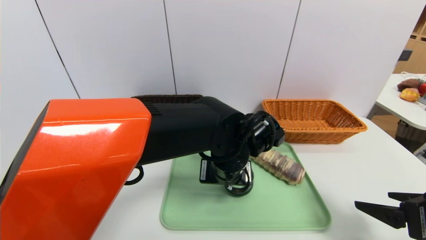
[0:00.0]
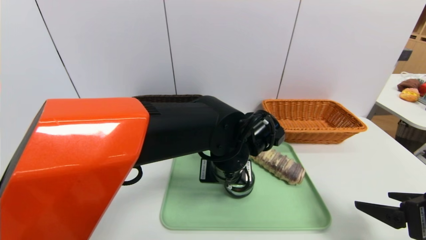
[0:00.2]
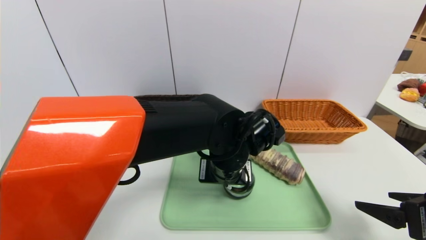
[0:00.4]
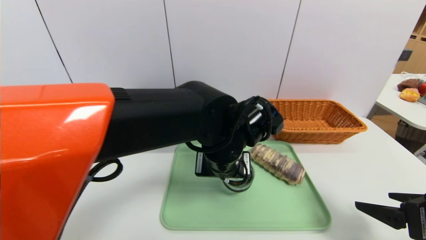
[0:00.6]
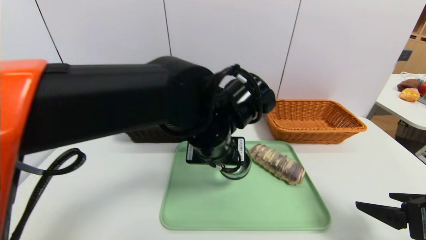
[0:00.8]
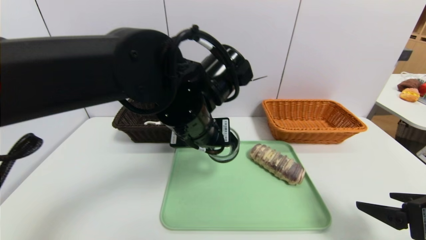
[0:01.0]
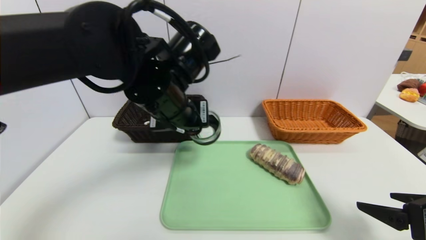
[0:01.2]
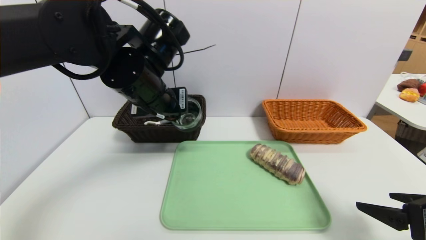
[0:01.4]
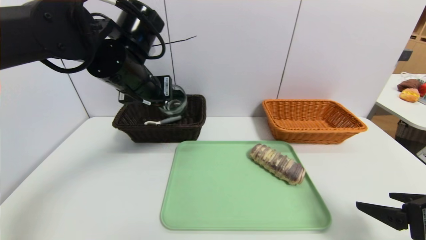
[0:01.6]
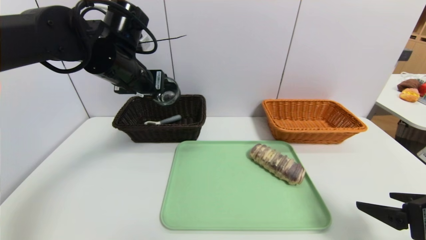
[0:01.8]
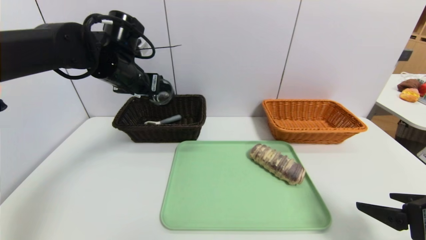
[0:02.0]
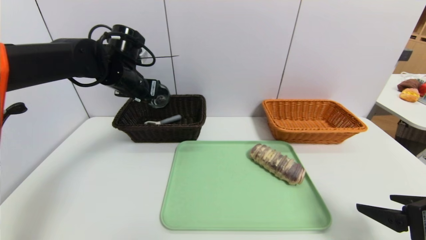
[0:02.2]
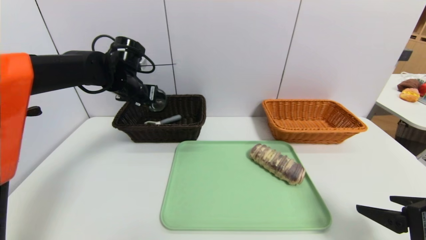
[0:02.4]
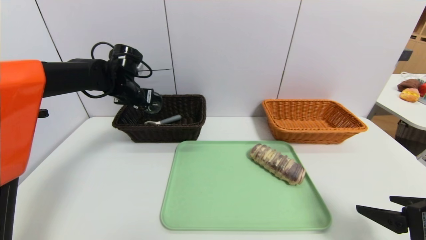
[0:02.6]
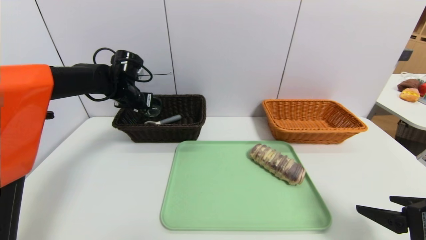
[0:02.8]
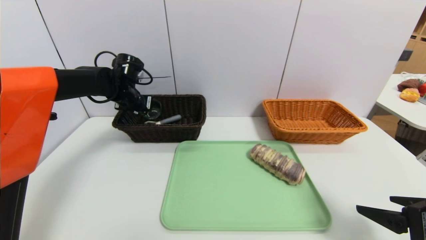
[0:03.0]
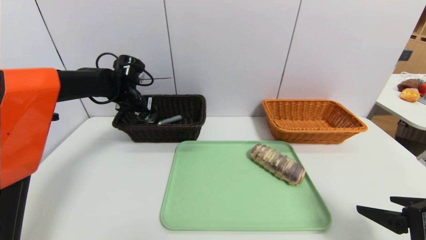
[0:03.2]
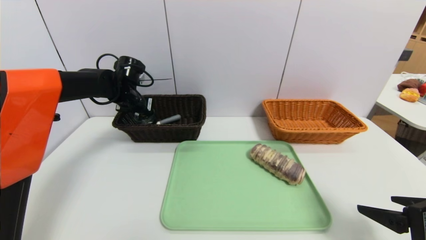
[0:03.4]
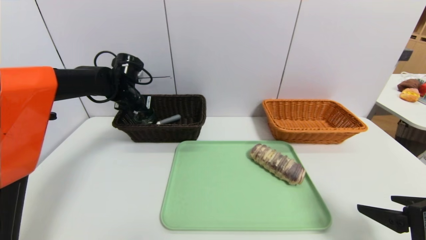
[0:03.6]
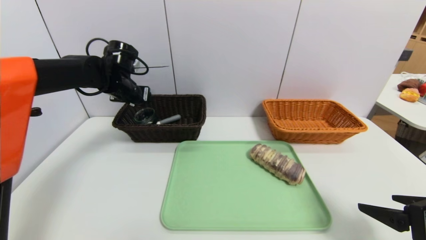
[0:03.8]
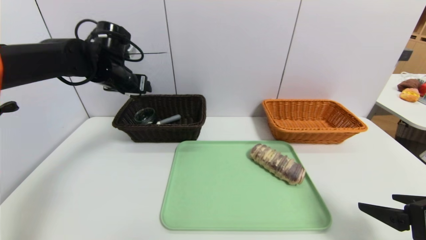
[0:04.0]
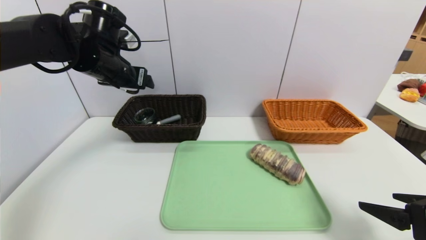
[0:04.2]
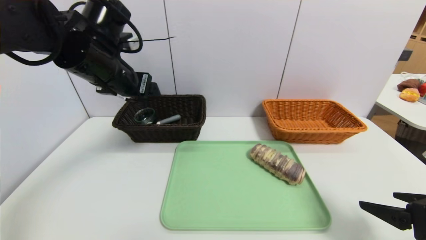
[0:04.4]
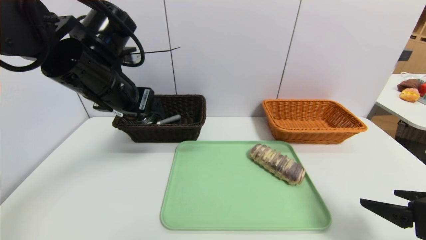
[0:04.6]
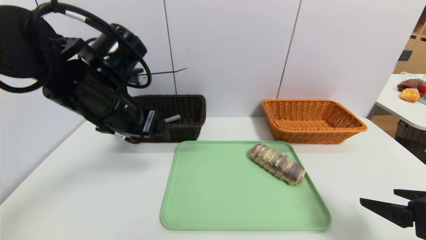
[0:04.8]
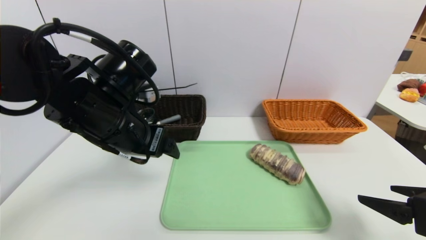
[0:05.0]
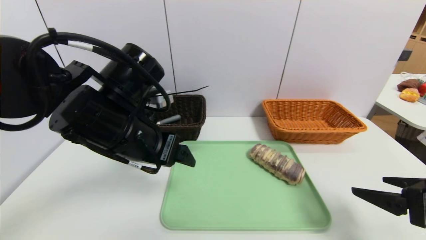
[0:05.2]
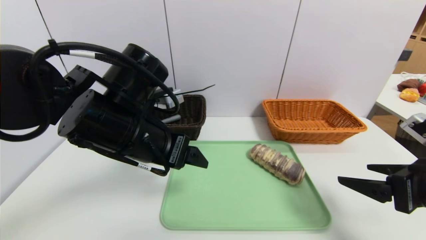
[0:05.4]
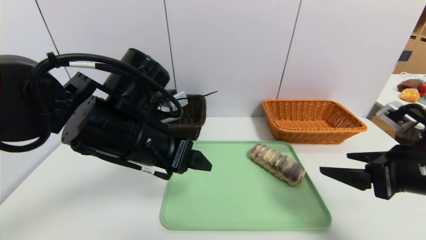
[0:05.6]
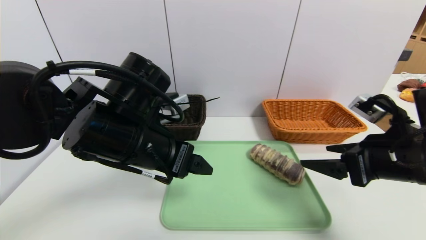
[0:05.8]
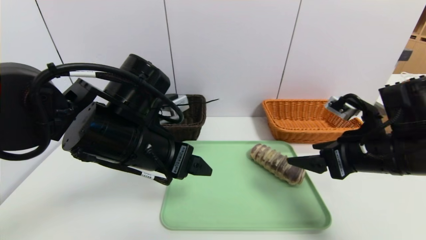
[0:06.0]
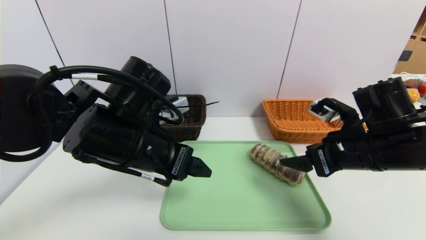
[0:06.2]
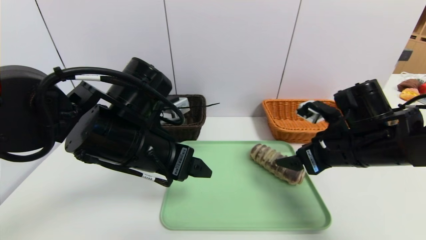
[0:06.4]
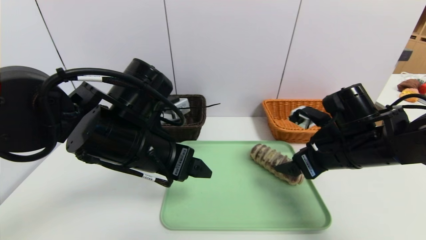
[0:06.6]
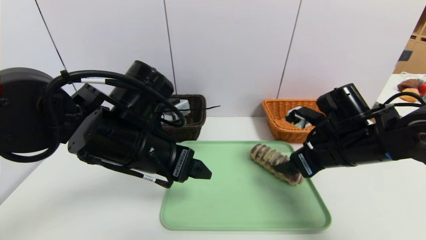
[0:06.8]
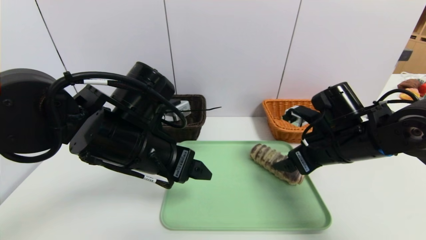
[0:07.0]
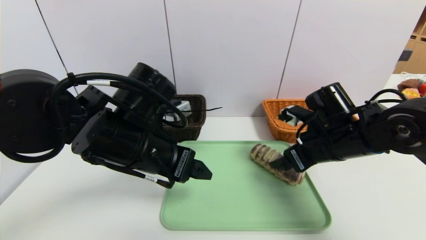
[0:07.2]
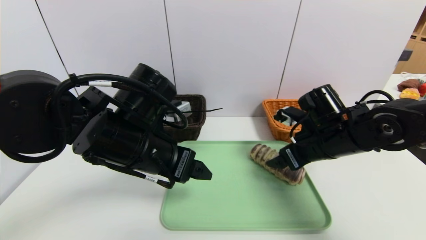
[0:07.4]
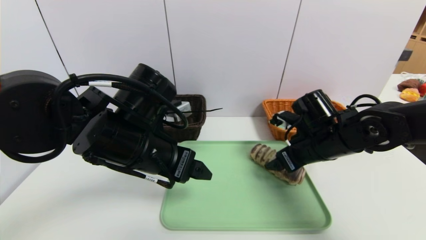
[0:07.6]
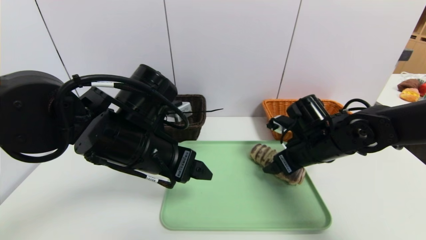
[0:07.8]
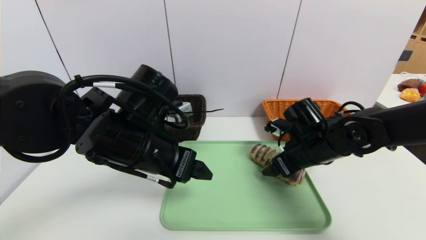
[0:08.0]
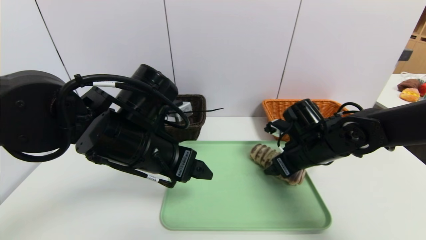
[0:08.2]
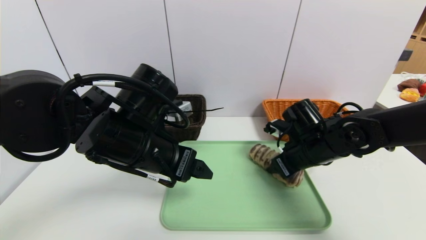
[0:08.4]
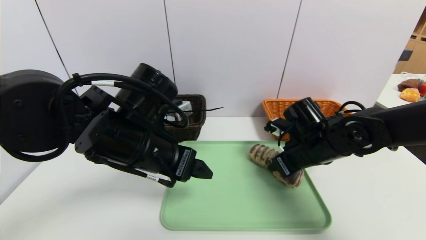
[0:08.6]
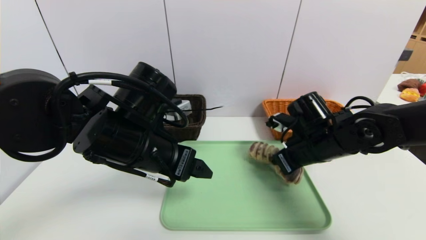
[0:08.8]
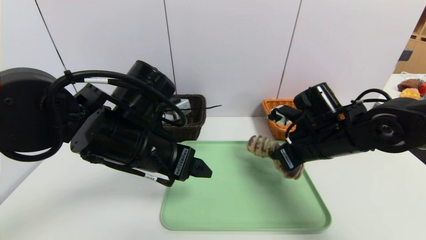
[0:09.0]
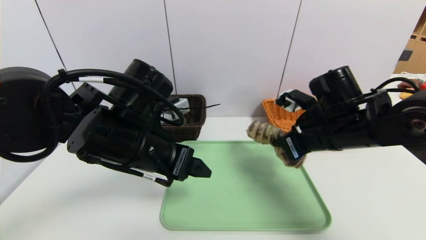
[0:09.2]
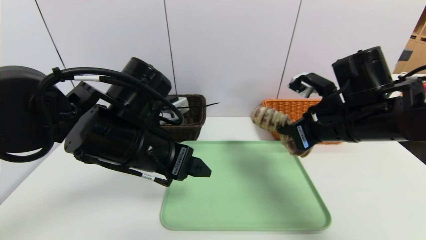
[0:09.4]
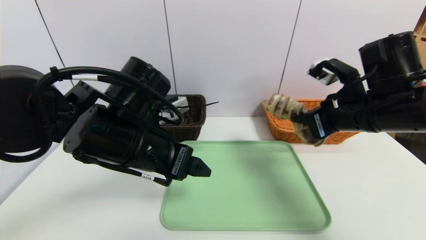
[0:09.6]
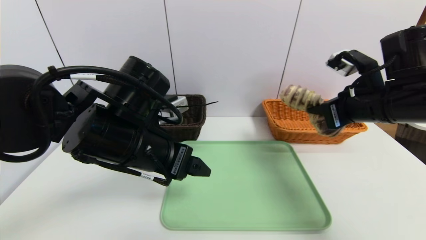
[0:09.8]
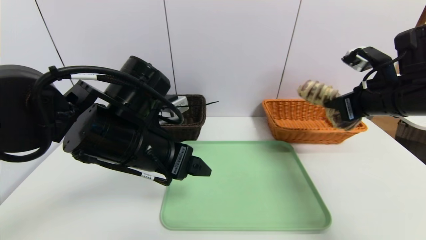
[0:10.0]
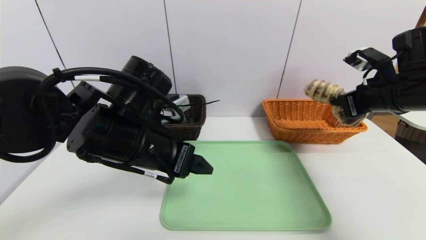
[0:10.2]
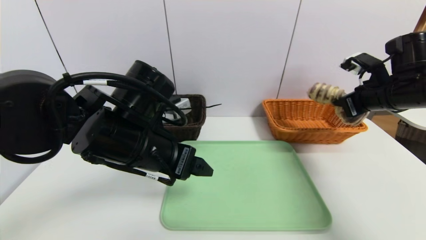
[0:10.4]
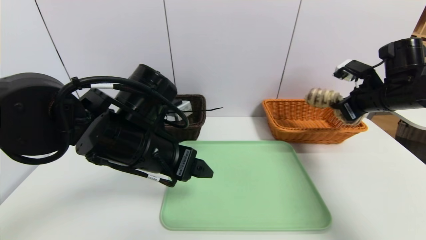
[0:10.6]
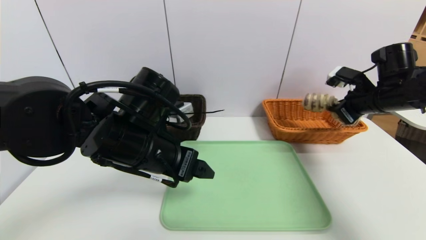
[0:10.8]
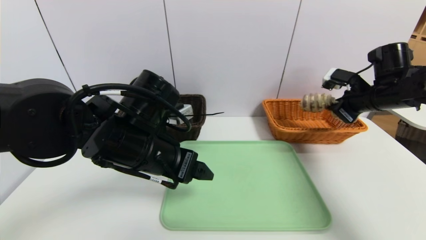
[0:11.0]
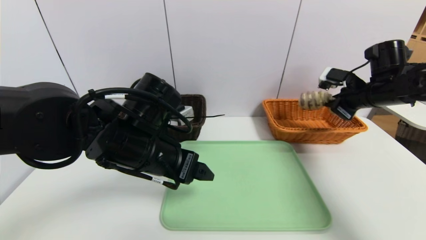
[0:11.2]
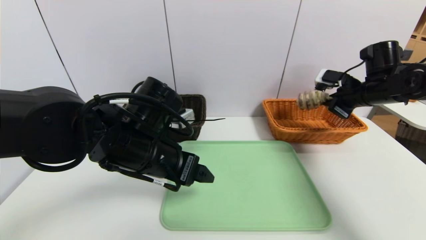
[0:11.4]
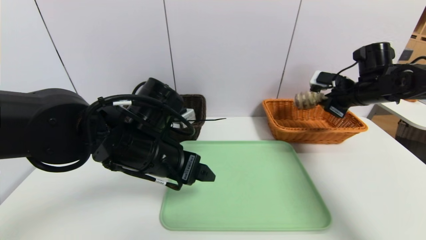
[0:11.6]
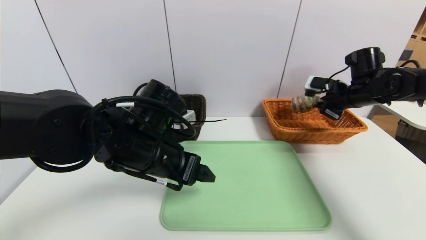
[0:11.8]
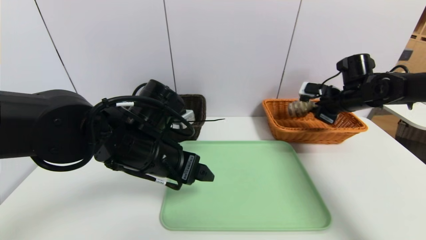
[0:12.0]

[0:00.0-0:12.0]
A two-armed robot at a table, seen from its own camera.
Task of the whole recording: place the food in the right basket with the right gripper, and place the non food items in the left basket with the left gripper.
Step, 0:00.0 to 0:03.6: Grasp the tea cup and put it in the left basket.
0:00.0 to 0:01.6: The left gripper goes approximately 20 cm to the left and upward.
0:01.6 to 0:03.0: The left gripper goes some 20 cm forward, downward and to the left.
0:03.0 to 0:04.4: The left gripper moves backward and upward, some 20 cm, and opens its fingers.
0:04.4 to 0:06.0: The right gripper heads forward and to the left, covering approximately 15 cm. The left gripper moves backward, downward and to the right, about 15 cm.
0:06.0 to 0:07.6: The right gripper moves forward and downward, some 10 cm.
0:07.6 to 0:09.0: The right gripper closes.
0:09.0 to 0:10.4: The right gripper moves to the right and upward, some 15 cm.
0:10.4 to 0:12.0: The right gripper shifts some 10 cm forward and downward.

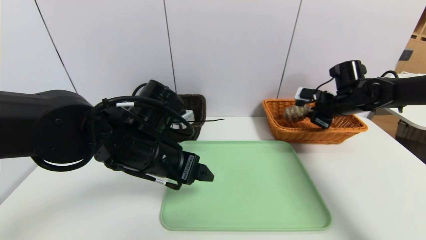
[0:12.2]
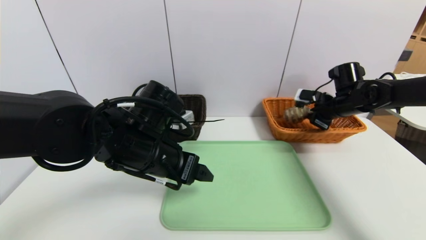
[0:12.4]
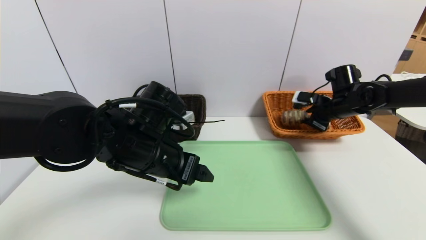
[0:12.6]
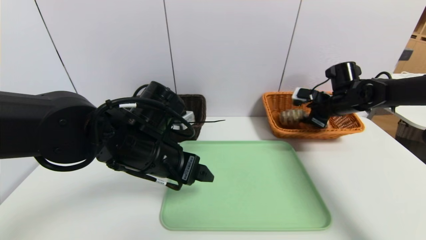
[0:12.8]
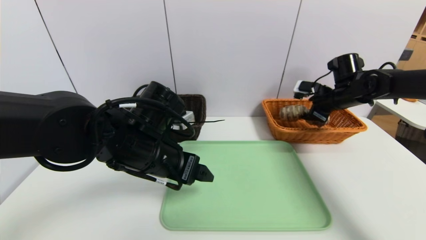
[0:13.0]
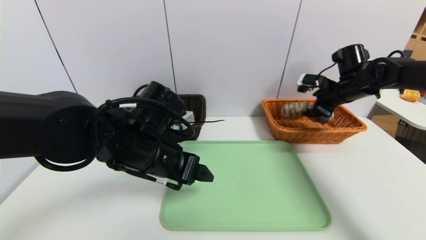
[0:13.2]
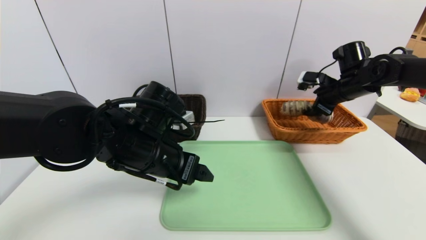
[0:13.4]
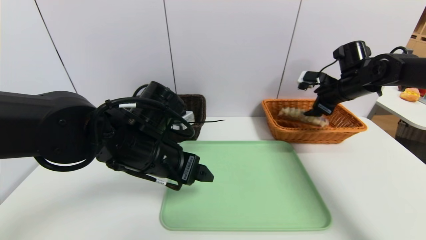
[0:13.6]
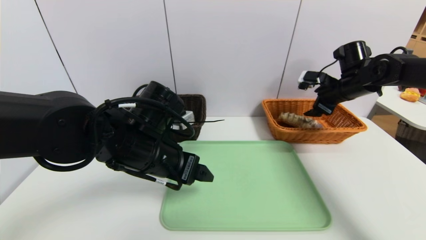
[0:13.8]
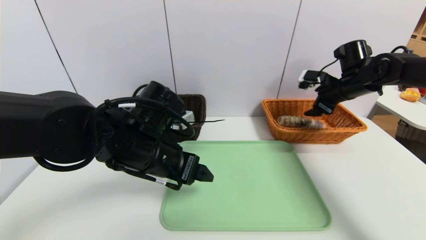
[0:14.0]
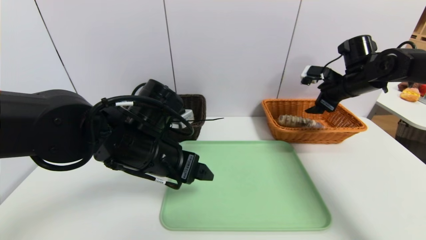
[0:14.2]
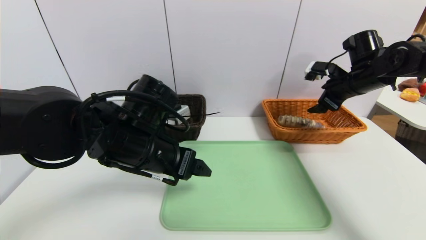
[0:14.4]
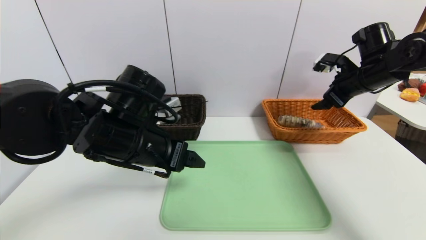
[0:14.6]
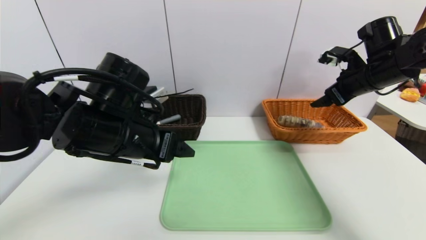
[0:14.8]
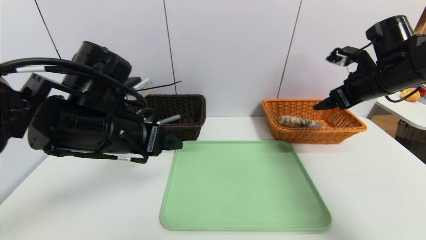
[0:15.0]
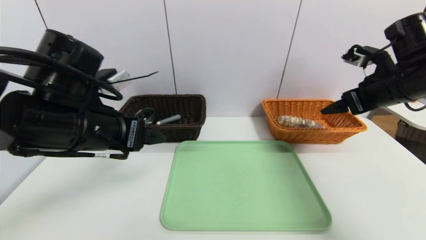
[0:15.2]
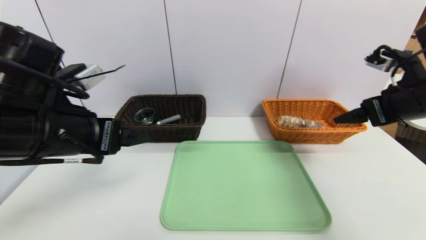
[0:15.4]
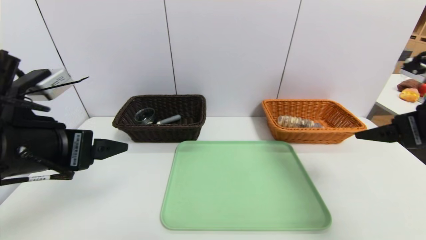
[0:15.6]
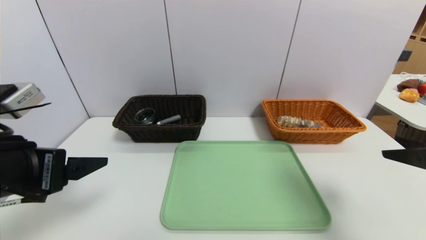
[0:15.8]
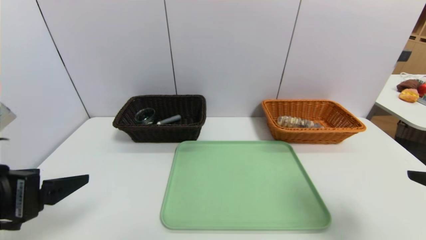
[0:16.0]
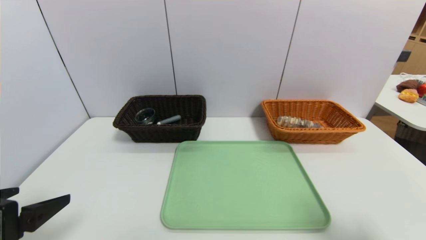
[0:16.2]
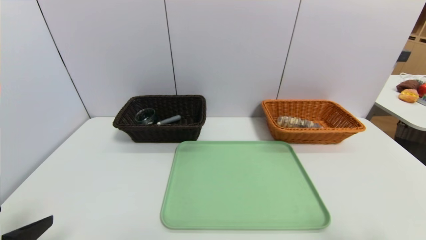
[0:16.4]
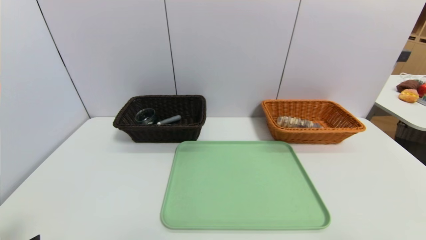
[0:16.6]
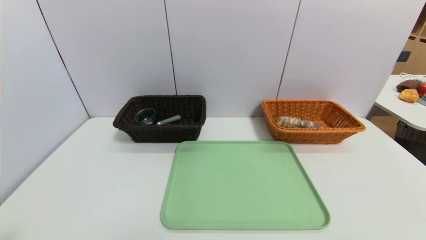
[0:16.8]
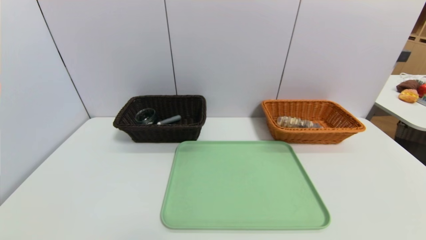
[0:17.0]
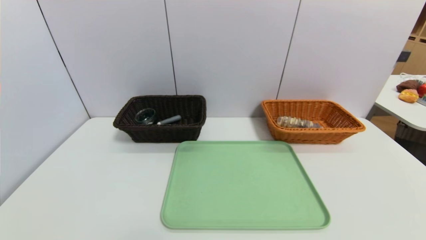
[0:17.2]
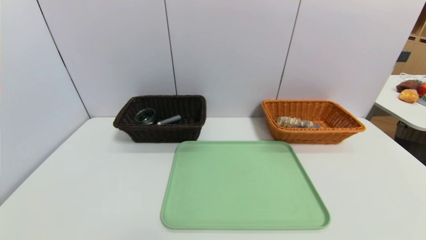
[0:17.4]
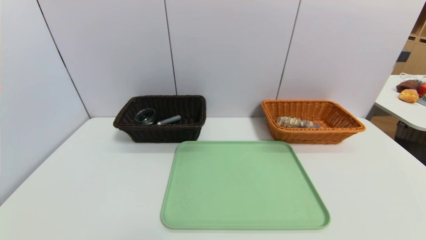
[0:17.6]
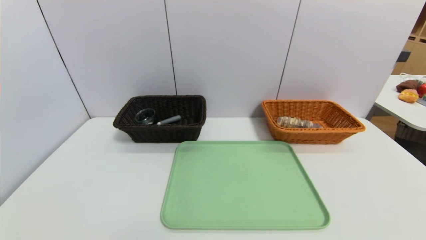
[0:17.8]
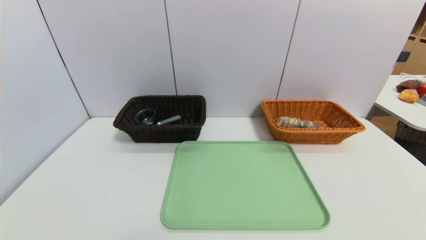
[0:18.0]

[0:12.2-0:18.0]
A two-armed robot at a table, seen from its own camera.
Task of the whole recording: place the food in the right basket with the right gripper, and place the non food items in the left basket with the left gripper.
0:12.2 to 0:13.6: The right gripper opens its fingers.
0:13.6 to 0:15.0: The left gripper travels to the left and upward by some 10 cm. The right gripper moves backward and upward, about 10 cm.
0:15.0 to 0:16.6: The right gripper shifts roughly 35 cm backward; the left gripper moves backward and to the left, approximately 25 cm.
